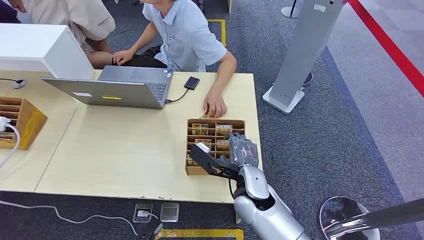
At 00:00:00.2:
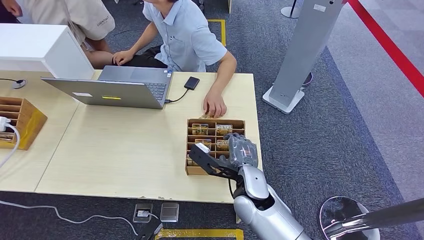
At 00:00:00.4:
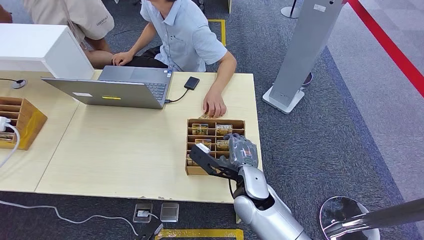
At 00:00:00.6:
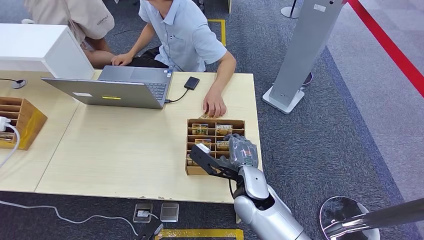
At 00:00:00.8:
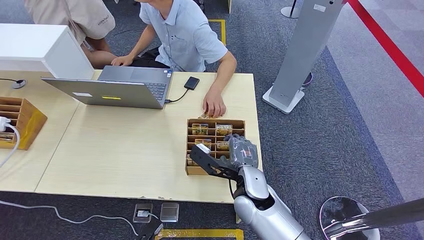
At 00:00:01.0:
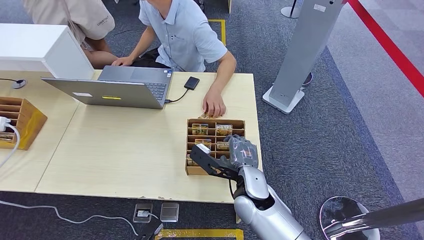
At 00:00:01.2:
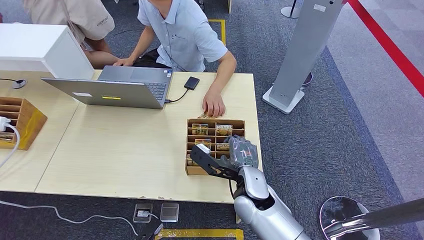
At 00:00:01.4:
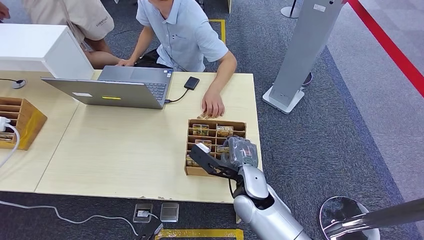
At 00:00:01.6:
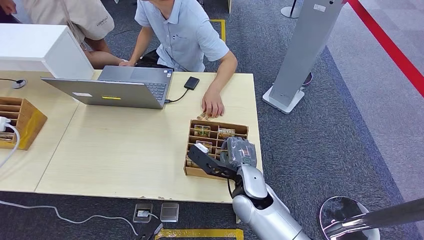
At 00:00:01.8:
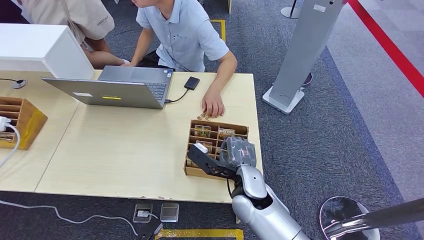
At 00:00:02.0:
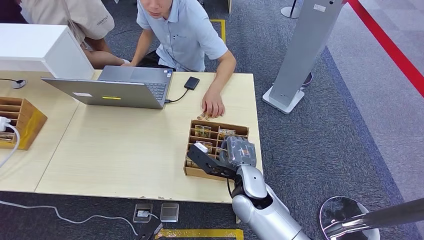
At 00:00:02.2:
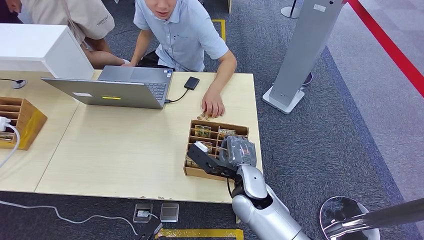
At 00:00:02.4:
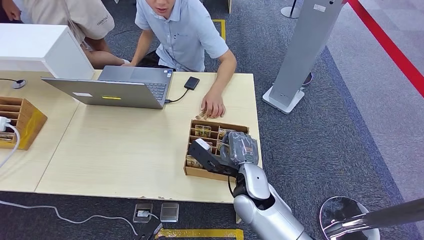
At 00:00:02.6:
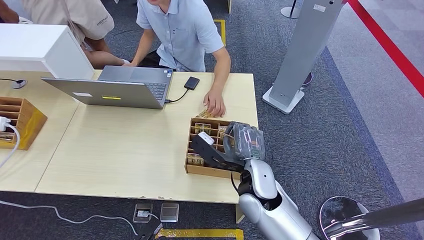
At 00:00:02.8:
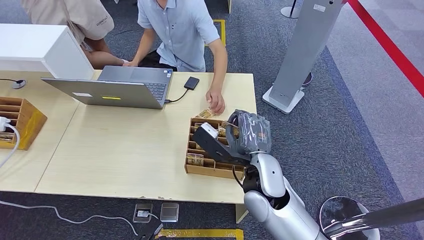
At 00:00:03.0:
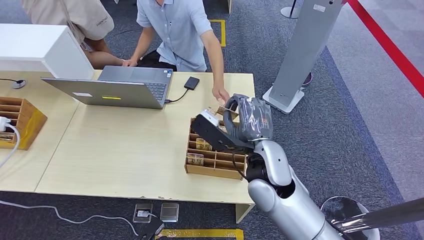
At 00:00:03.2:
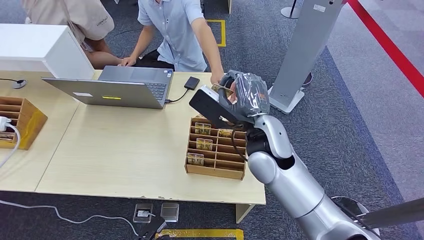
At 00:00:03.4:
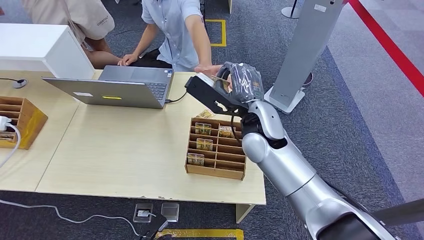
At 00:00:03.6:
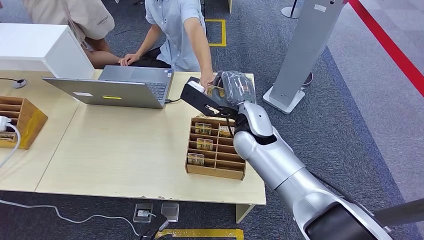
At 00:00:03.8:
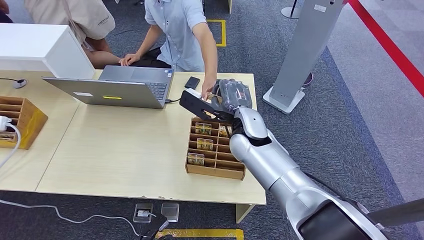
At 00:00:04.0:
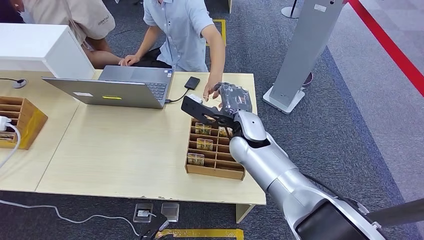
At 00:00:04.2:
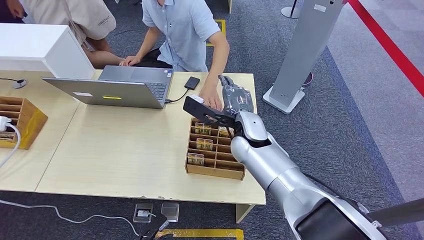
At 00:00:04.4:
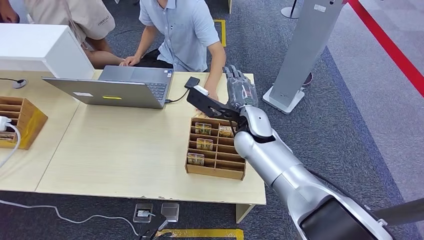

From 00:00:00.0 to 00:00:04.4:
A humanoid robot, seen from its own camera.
Task of the whole recording: Pick up the card and hand it over to the target person.
Step, from 00:00:00.0 to 00:00:02.6: Pick up the key card from the card box.
Step, from 00:00:03.6 to 00:00:04.4: Hand the key card to the target.
From 00:00:01.4 to 00:00:03.0: The right hand travels upward and forward by roughly 15 cm.
From 00:00:03.0 to 00:00:04.4: The right hand moves roughly 5 cm downward and comes back.
